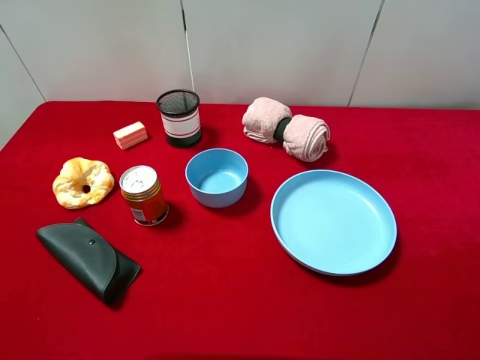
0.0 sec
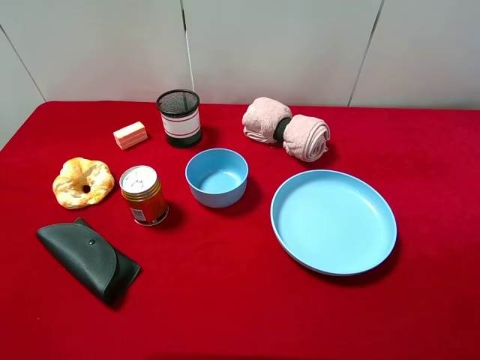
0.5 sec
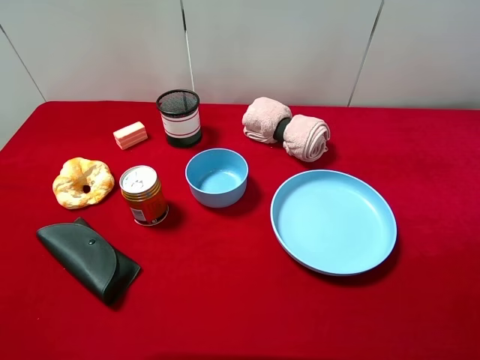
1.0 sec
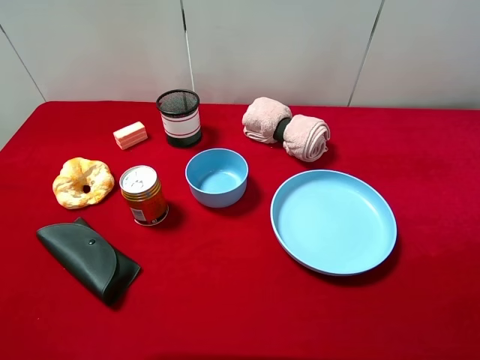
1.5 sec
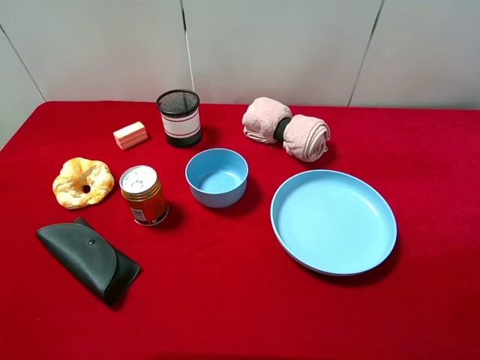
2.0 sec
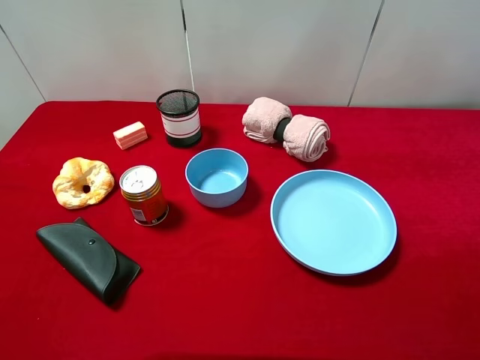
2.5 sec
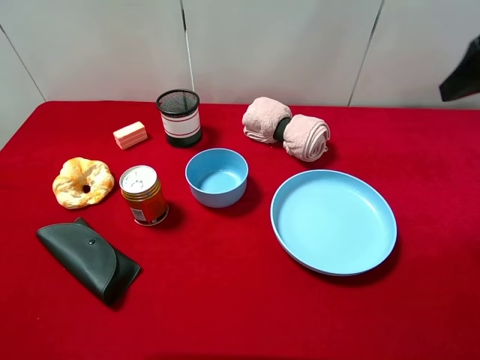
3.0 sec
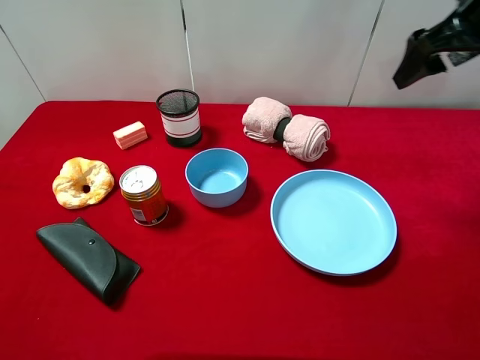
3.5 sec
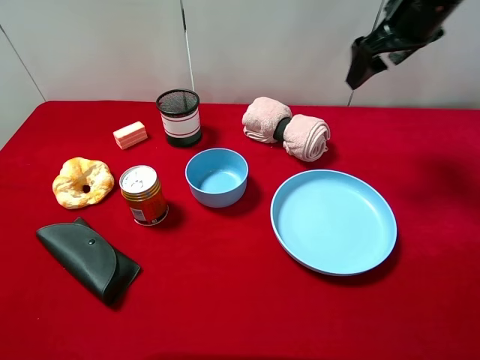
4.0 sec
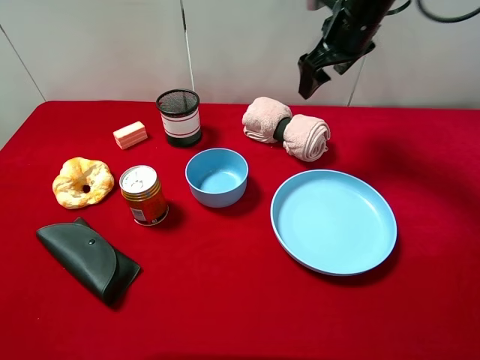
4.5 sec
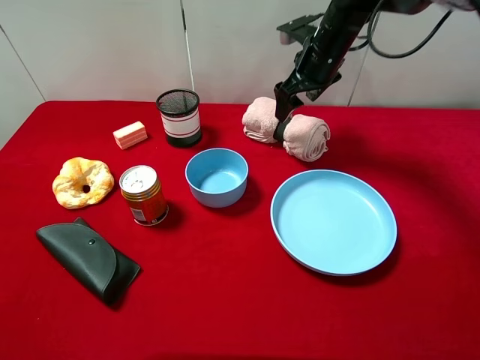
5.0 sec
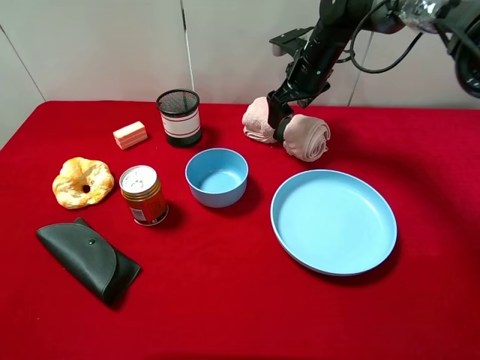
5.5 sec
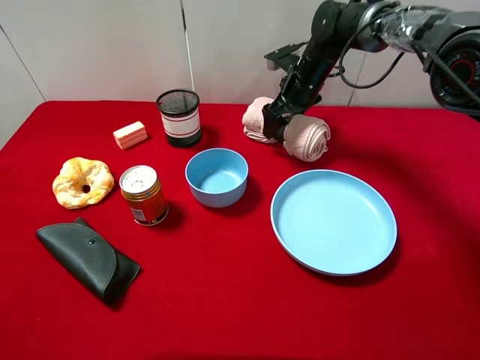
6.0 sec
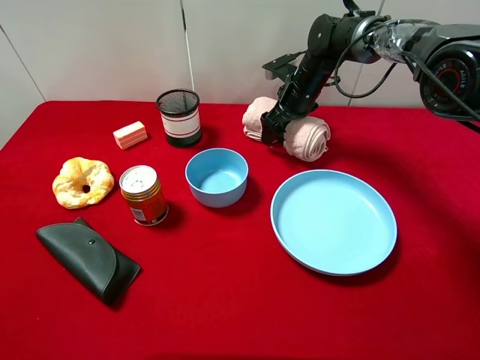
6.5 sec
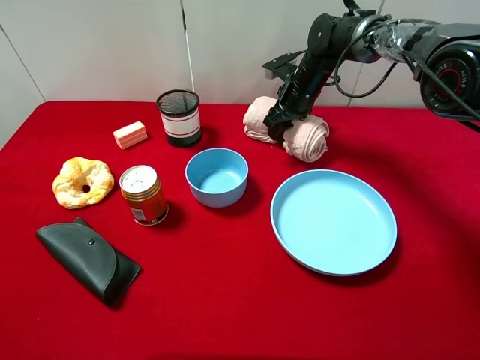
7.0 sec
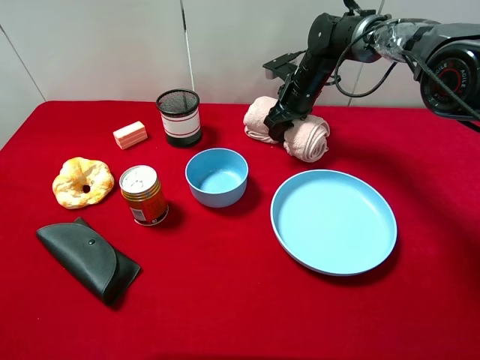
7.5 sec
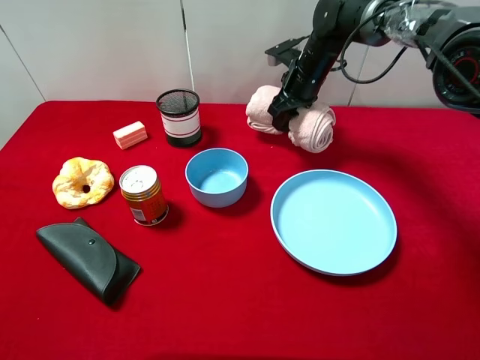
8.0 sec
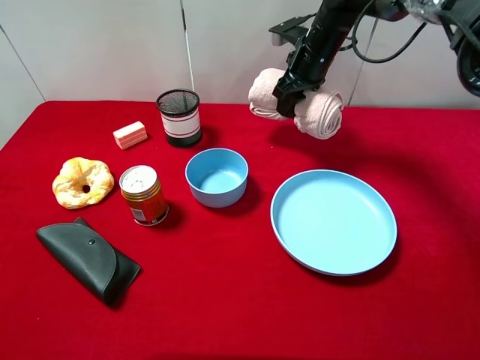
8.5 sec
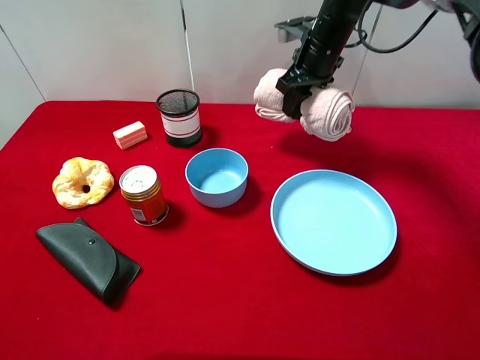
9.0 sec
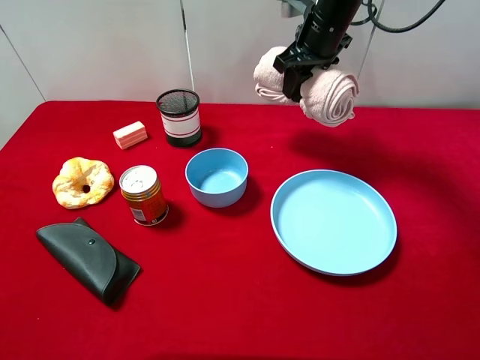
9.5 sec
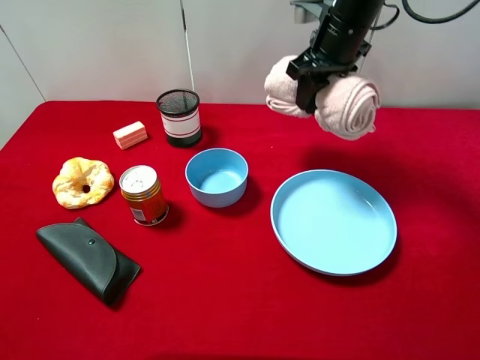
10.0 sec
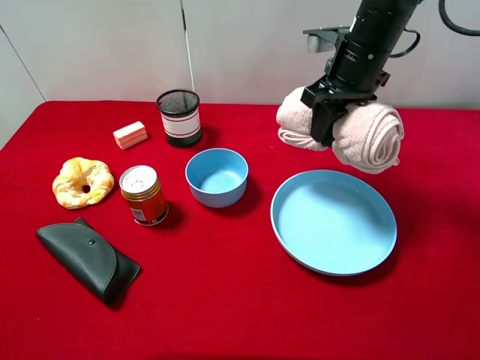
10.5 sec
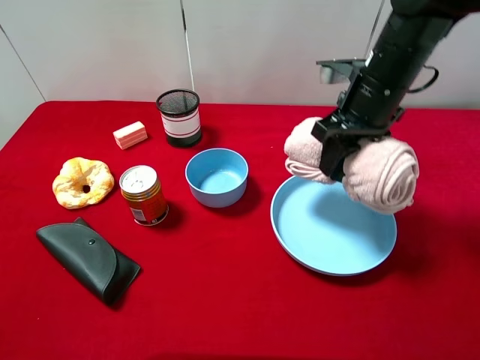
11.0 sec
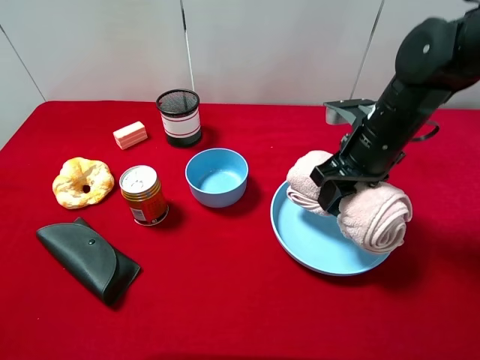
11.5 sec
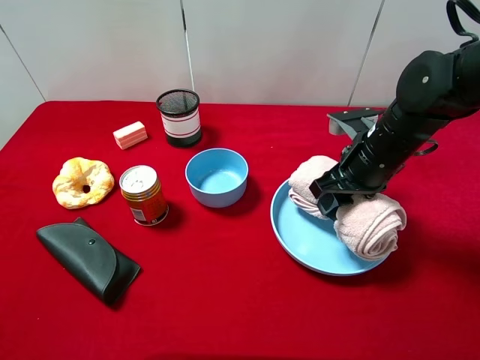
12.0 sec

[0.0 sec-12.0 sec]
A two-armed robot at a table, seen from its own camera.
Task of the whole recording: pick up an item with a gripper and place it in a random container on the desktop.
2.0 sec to 4.0 sec: The right gripper heads forward, covering some 35 cm.
4.0 sec to 6.0 sec: The right gripper travels downward, to the left and forward by some 20 cm.
6.0 sec to 8.0 sec: The right gripper closes its fingers.
8.0 sec to 10.0 sec: The right gripper heads upward and backward, covering some 10 cm.
10.0 sec to 12.0 sec: The right gripper moves backward and downward, approximately 15 cm.

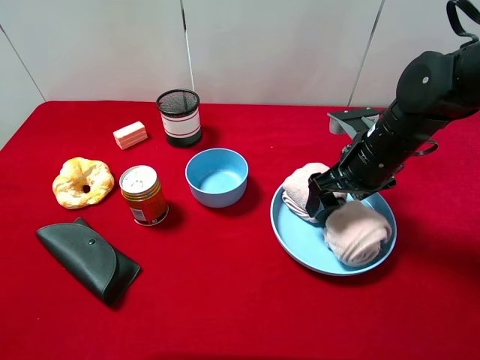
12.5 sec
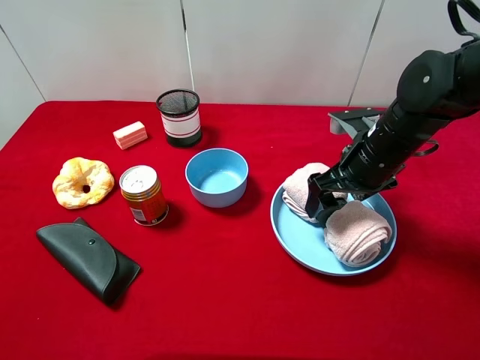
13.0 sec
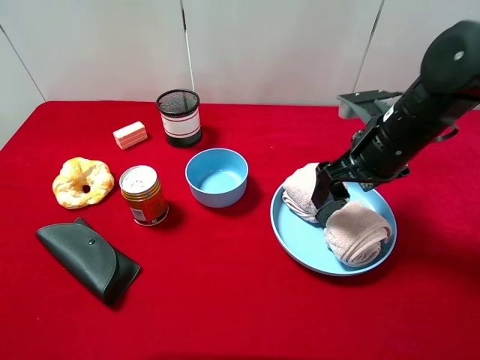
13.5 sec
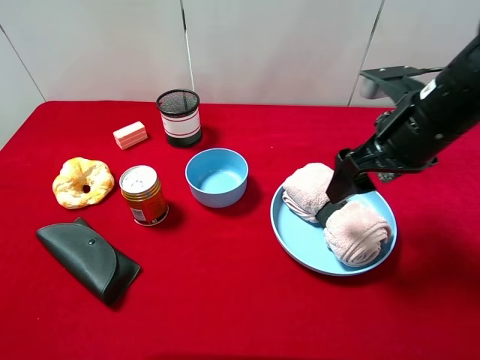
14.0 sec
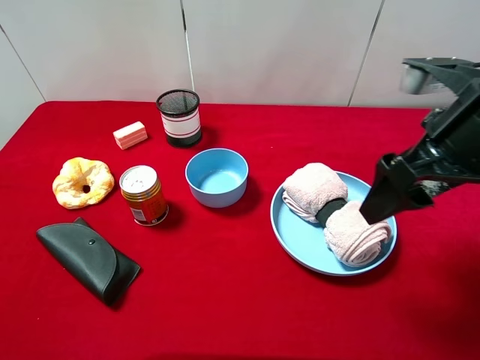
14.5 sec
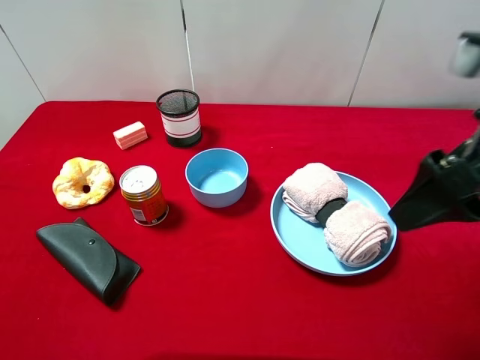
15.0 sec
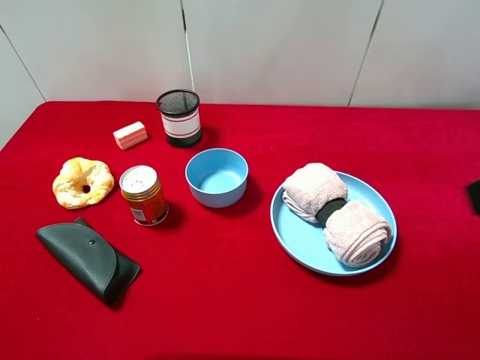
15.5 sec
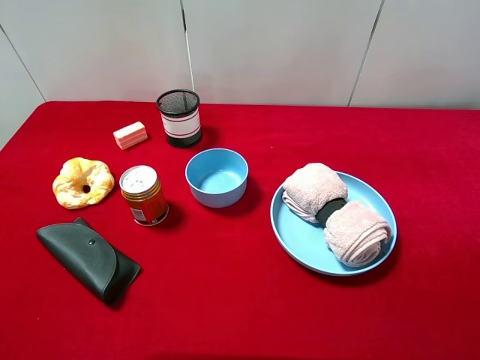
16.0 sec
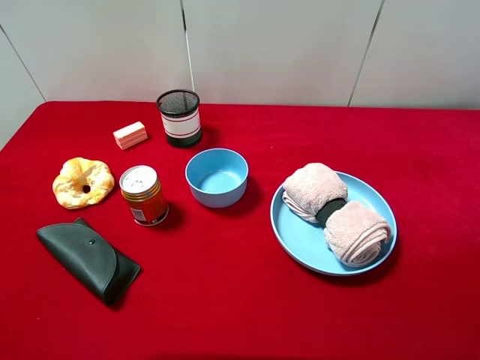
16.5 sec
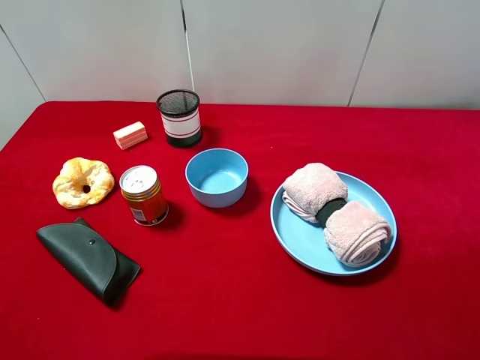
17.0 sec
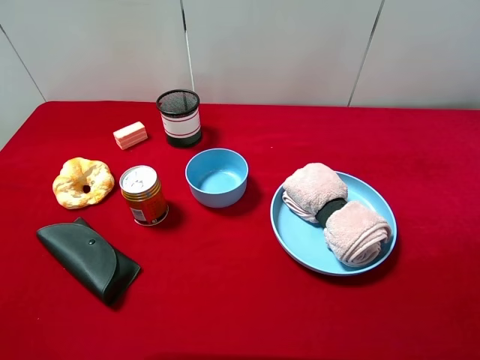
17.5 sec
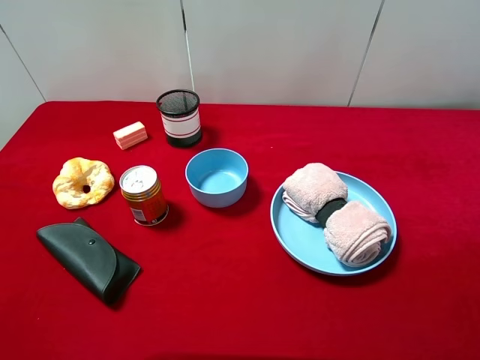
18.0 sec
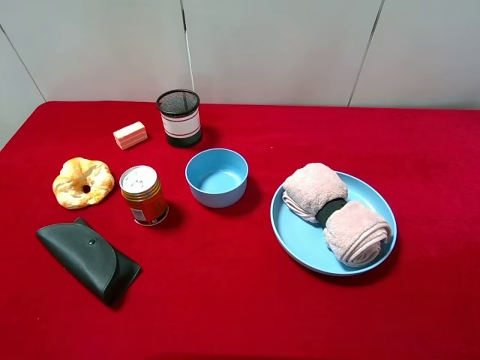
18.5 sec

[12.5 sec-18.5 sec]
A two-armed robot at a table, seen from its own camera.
Task of the whole recording: pick up an item with a gripper and place it in a random container on the desktop.
12.5 sec to 14.5 sec: The right gripper travels upward and backward by approximately 15 cm.
14.5 sec to 16.5 sec: The right gripper travels backward and to the right by roughly 20 cm.
16.5 sec to 18.5 sec: Both grippers stay put.

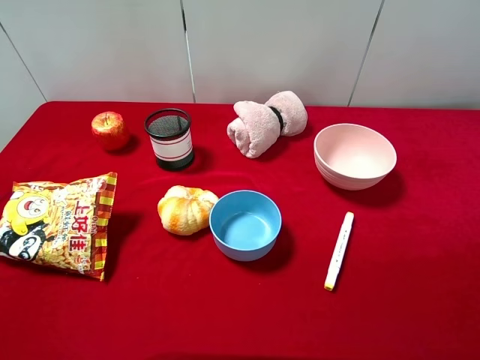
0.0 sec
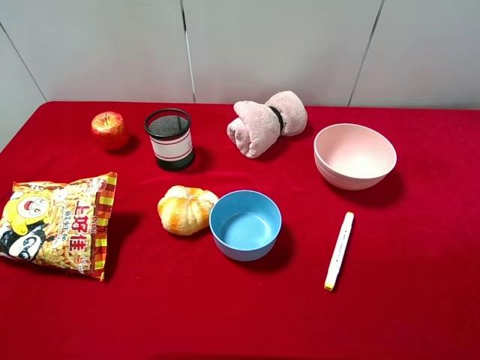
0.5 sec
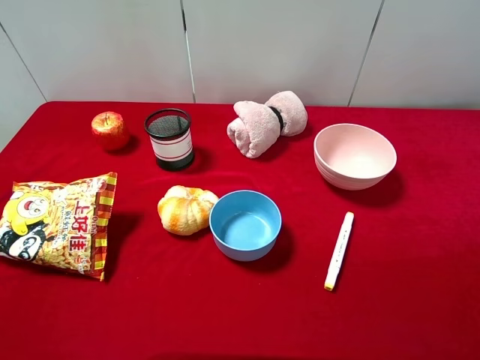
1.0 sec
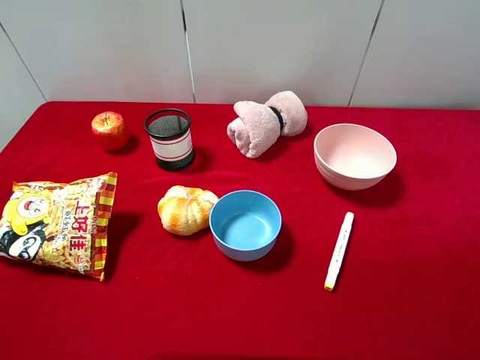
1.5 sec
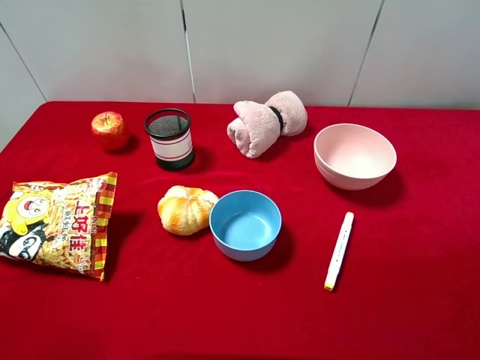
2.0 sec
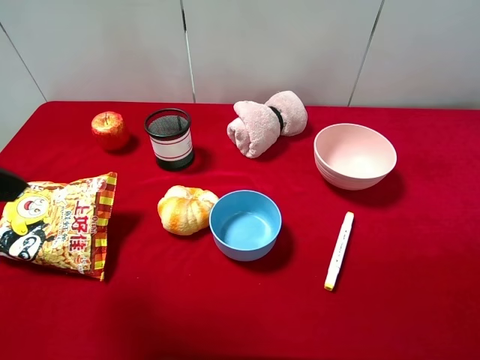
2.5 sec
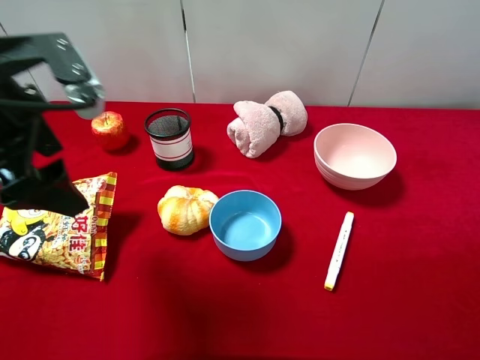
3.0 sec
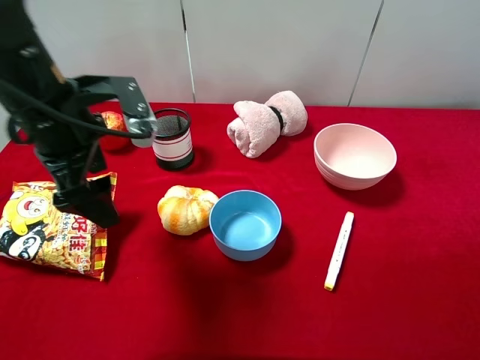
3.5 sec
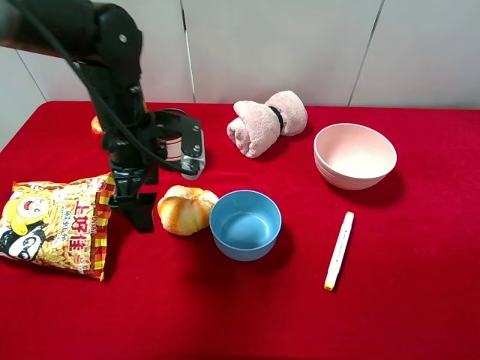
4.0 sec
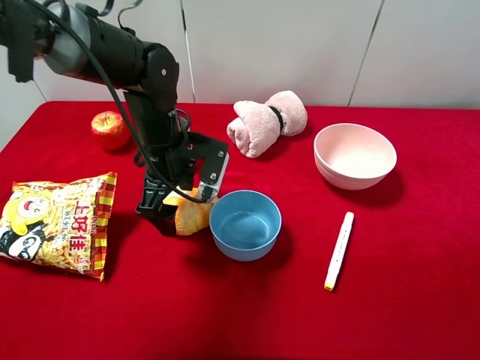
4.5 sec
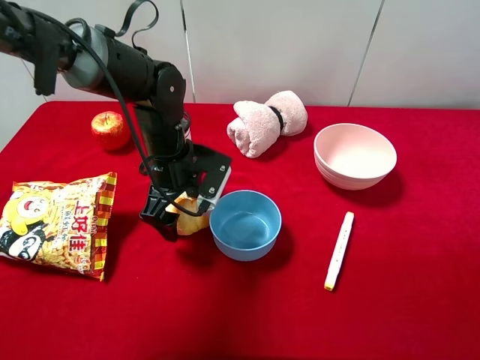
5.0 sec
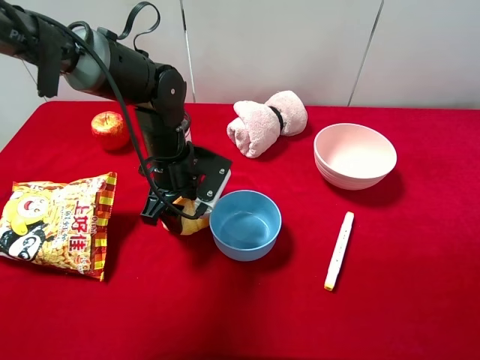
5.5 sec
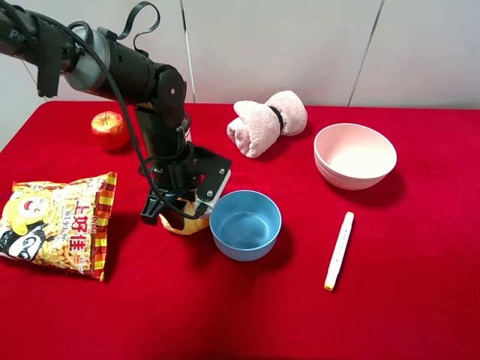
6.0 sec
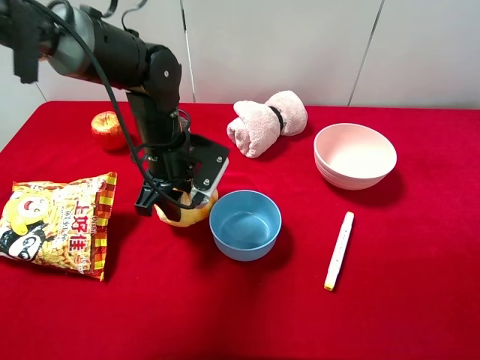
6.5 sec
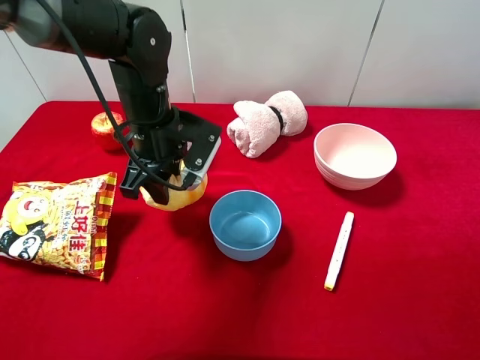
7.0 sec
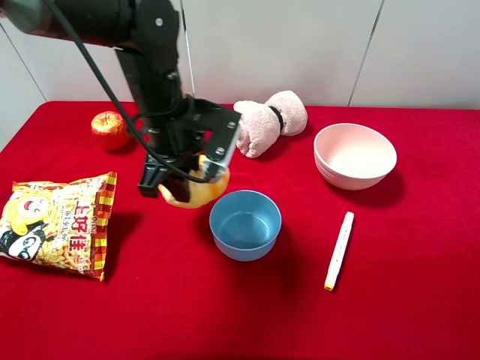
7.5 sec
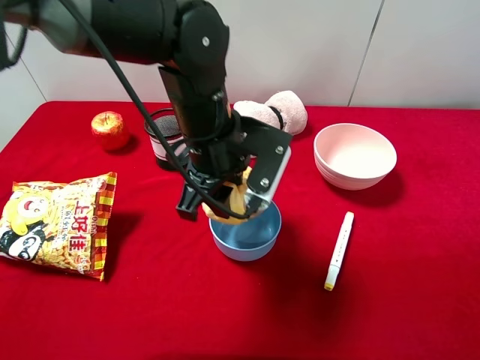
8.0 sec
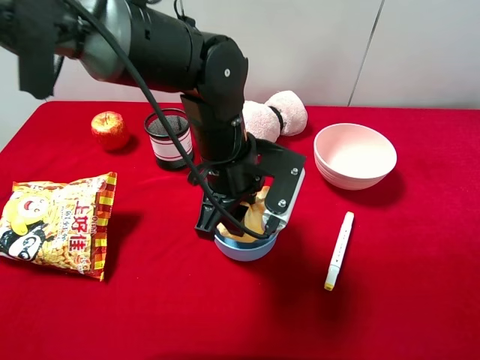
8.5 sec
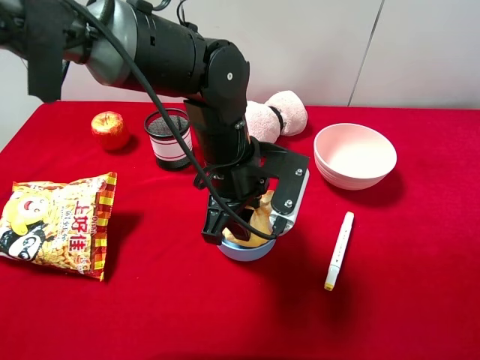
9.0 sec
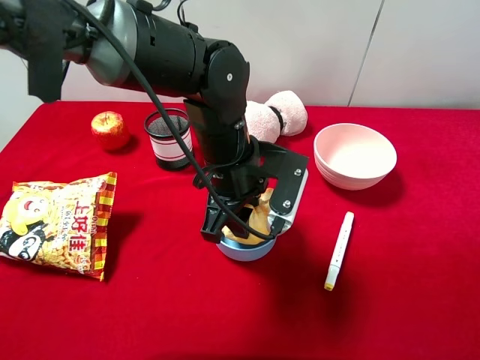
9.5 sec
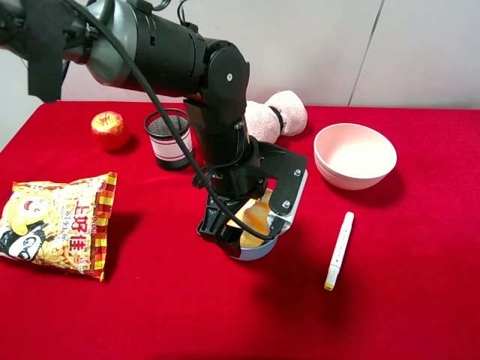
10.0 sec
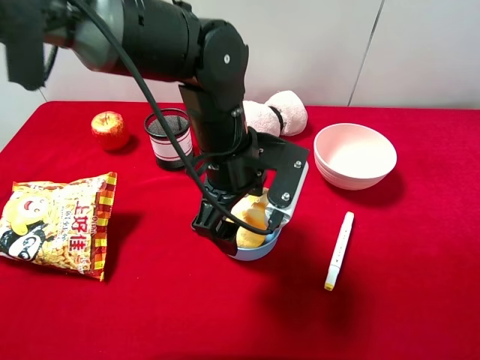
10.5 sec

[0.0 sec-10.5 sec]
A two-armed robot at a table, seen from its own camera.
Task of the whole recording: pick up an item with a gripper and place it in a random container on the desktop.
2.0 sec to 4.0 sec: The left gripper is displaced forward, to the right and downward by approximately 35 cm.
4.0 sec to 6.5 sec: The left gripper moves roughly 5 cm, and closes.
6.5 sec to 8.5 sec: The left gripper travels to the right and backward by roughly 10 cm.
8.5 sec to 10.5 sec: The left gripper opens.
